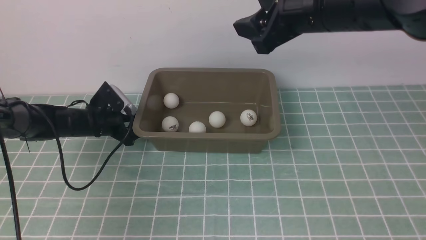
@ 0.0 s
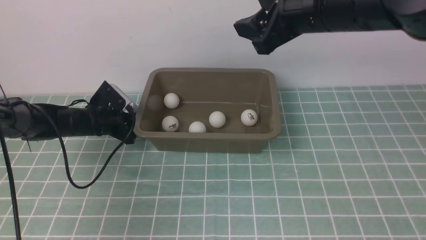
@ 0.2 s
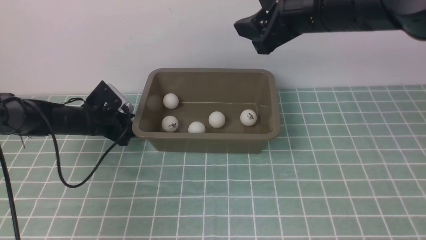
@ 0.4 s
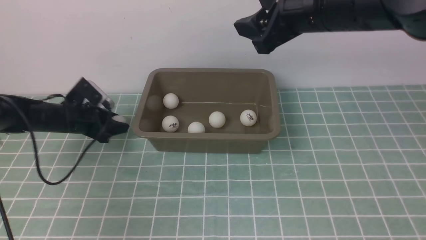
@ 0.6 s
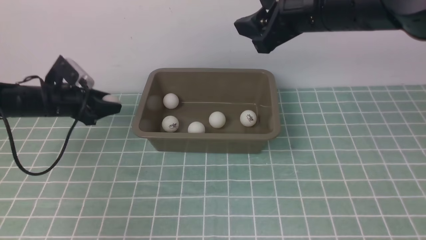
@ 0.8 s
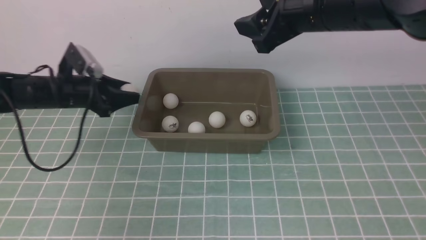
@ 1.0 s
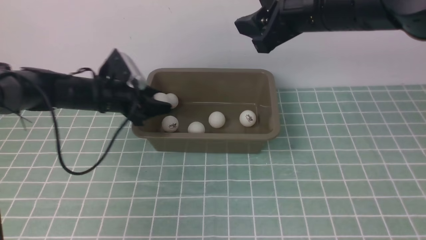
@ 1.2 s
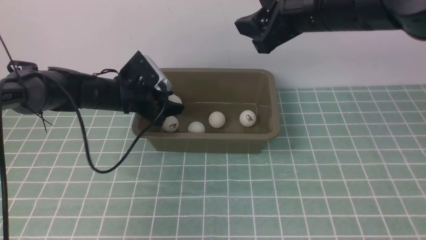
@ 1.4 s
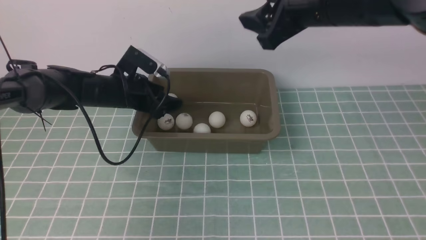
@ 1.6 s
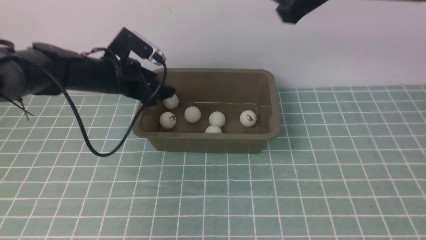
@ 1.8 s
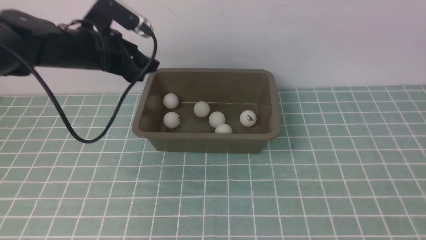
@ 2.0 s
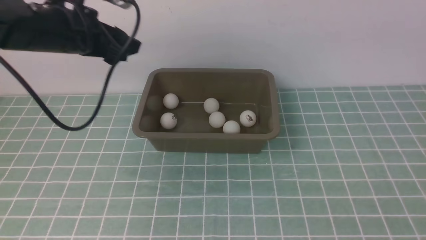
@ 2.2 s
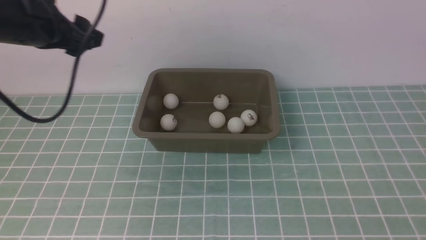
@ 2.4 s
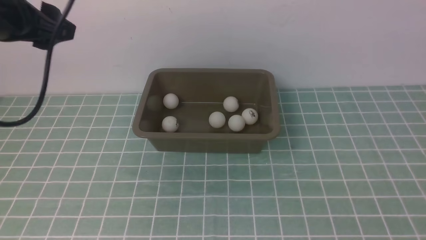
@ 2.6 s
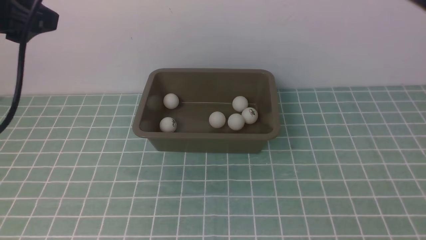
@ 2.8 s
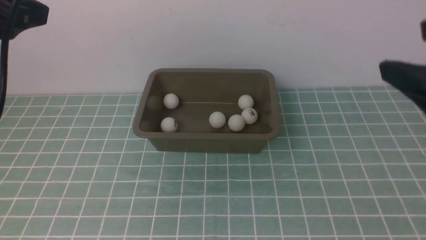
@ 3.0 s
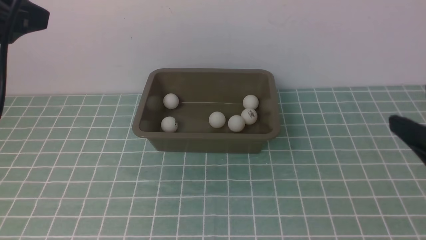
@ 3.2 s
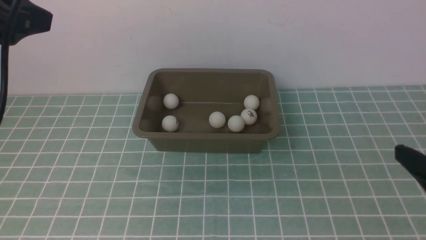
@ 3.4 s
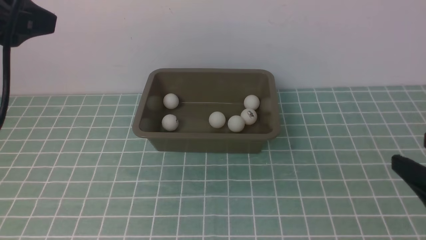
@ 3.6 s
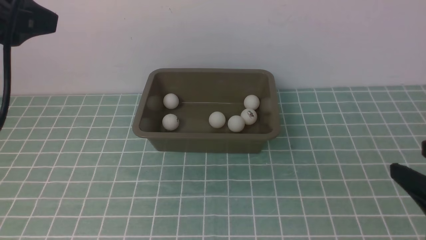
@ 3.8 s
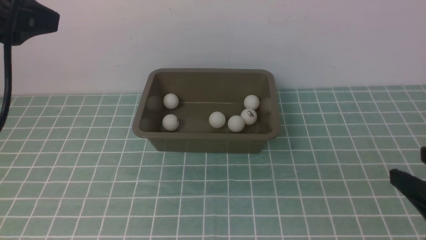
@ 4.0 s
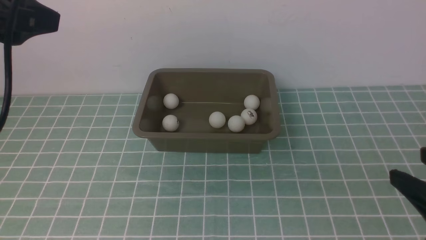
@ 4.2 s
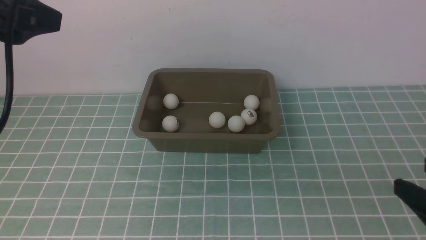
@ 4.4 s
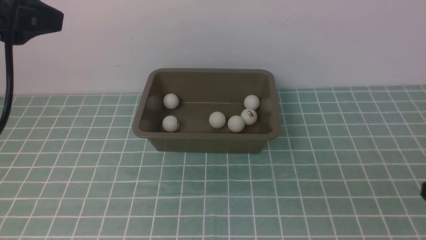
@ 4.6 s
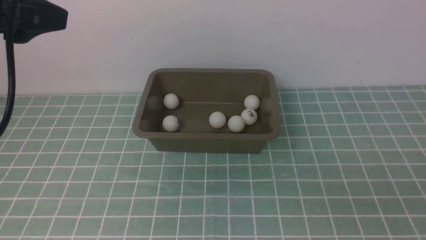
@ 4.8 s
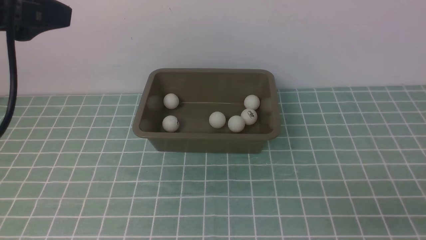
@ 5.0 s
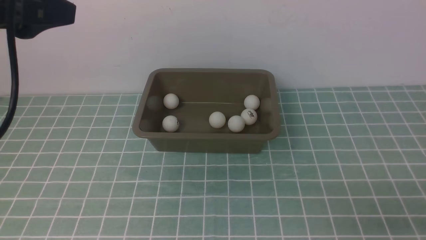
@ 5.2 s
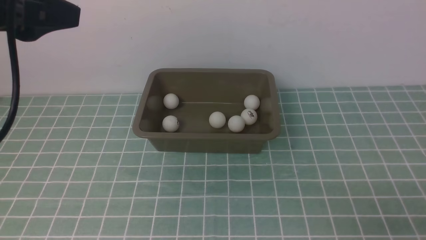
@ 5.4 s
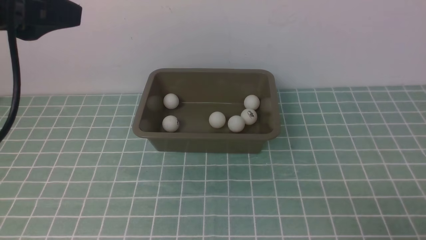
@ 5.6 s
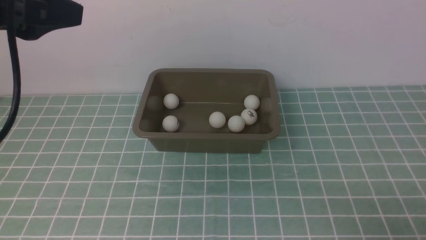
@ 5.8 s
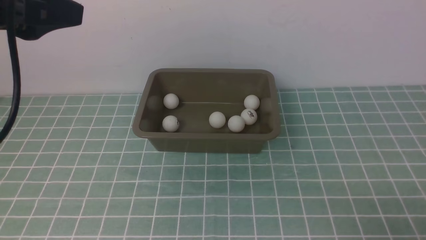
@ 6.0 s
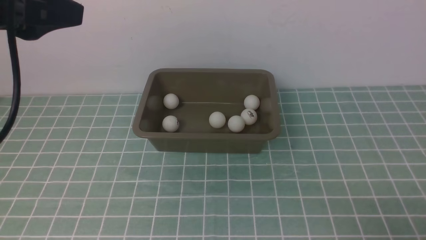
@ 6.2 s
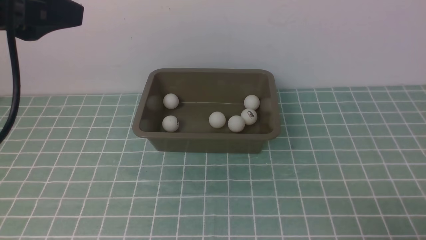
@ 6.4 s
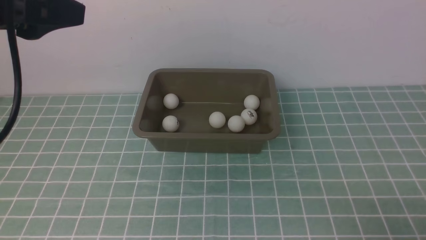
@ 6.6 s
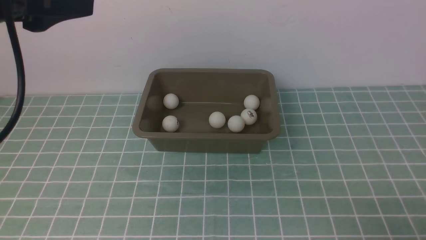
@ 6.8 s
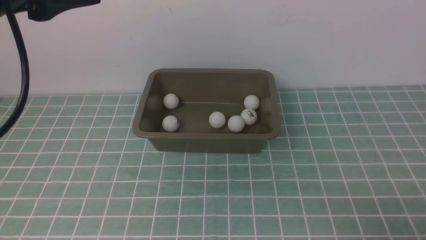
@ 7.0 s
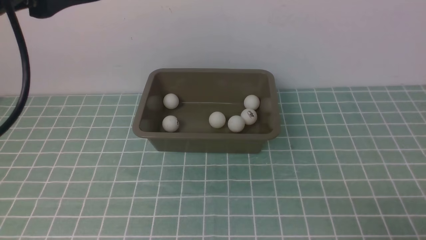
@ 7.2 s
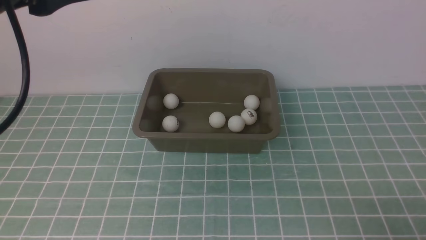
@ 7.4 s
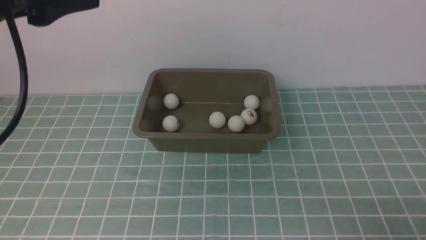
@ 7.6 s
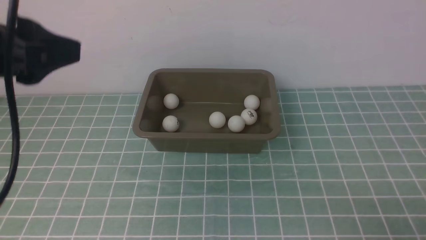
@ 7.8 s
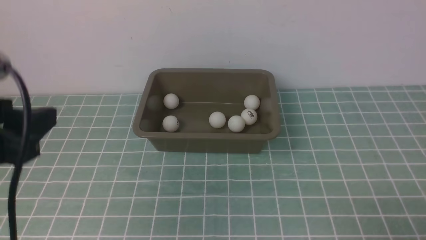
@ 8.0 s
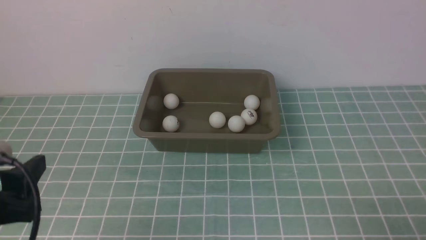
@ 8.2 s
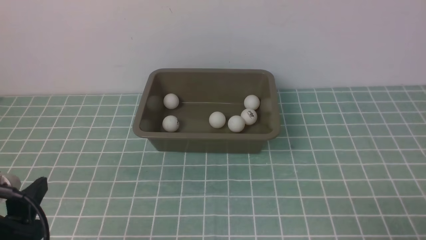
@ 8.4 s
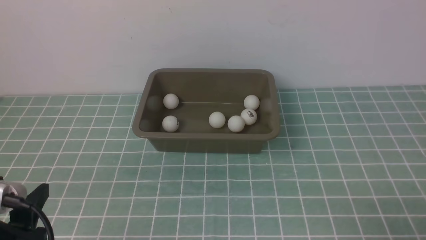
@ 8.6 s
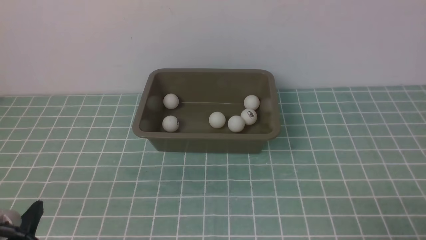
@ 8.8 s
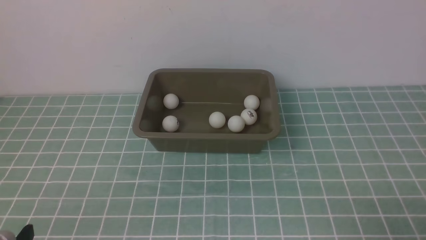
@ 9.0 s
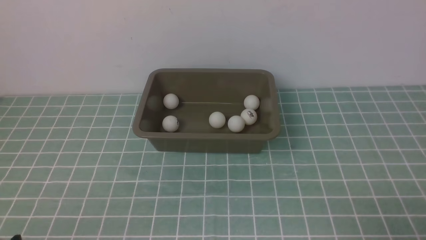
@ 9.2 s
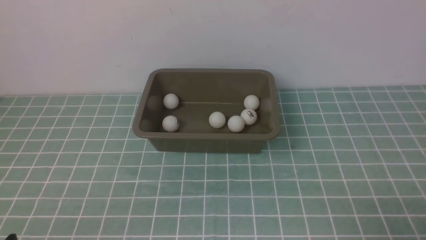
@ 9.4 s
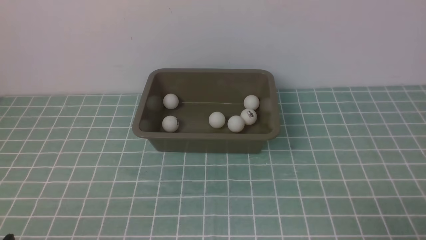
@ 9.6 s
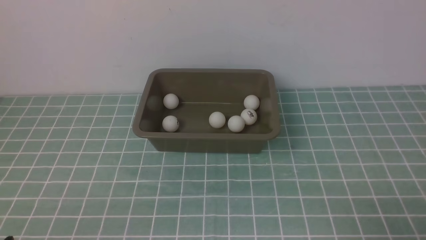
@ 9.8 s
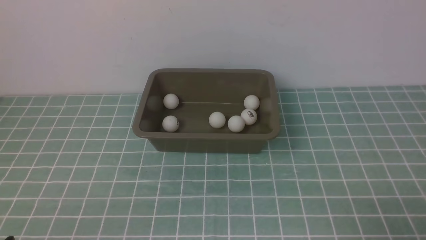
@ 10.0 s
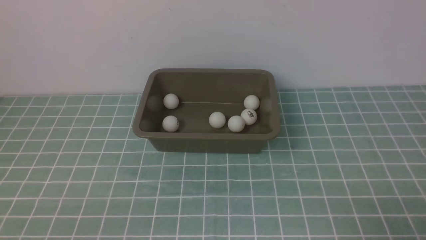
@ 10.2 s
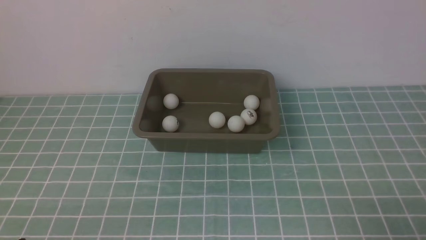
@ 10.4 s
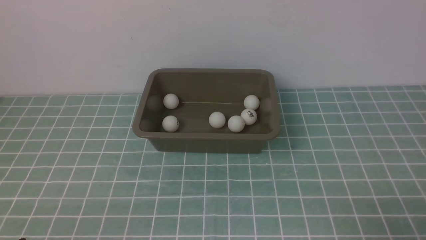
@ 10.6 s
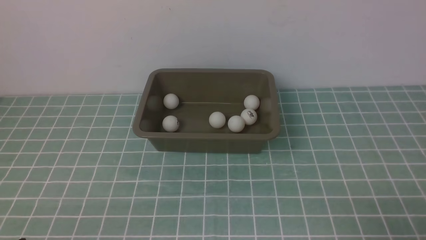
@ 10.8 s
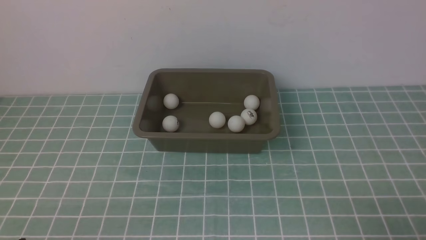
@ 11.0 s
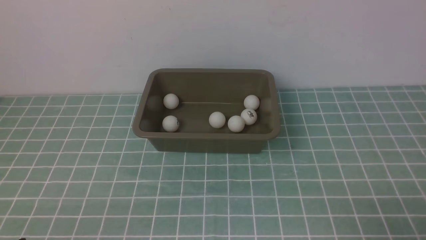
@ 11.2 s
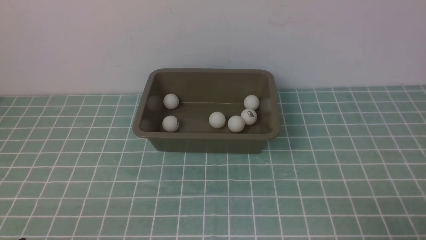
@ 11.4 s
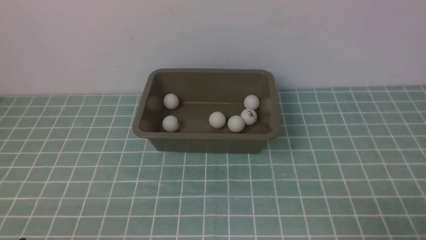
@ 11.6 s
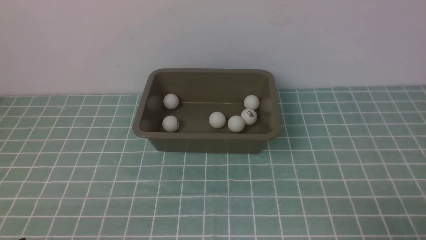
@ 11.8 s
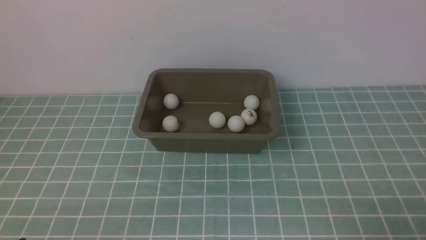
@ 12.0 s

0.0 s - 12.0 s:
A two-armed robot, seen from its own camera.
Step, 0.8 s - 1.6 s: use the left arm to put the table tennis ball into the box.
0.0 s - 1.6 s: The left gripper moves upward and to the right, approximately 10 cm, and closes, then opens again.
1.6 s - 3.0 s: The right gripper is displaced backward and to the right by some 25 cm. The left gripper moves upward and backward, some 30 cm.
3.0 s - 4.4 s: The right gripper heads downward and backward, covering some 10 cm.
4.4 s - 6.0 s: The right gripper travels downward by about 10 cm.
6.0 s - 7.6 s: There are only small adjustments of the grippers.
7.6 s - 9.0 s: The left gripper heads downward and backward, covering some 30 cm.
10.4 s - 12.0 s: Neither gripper changes place.
